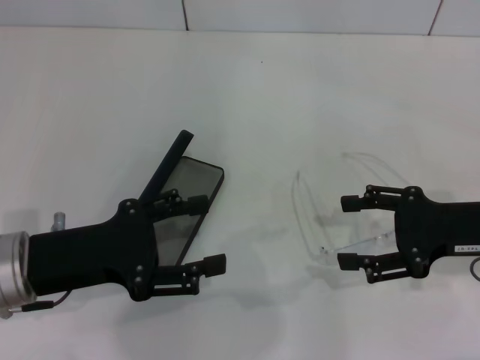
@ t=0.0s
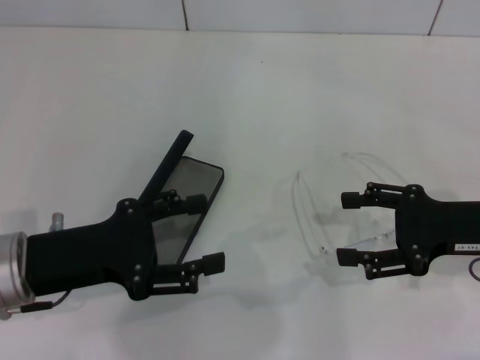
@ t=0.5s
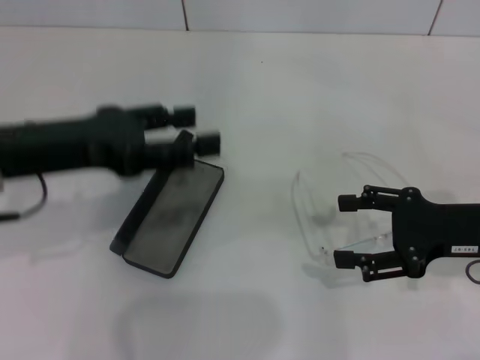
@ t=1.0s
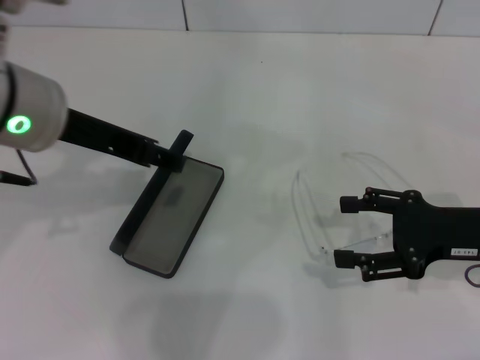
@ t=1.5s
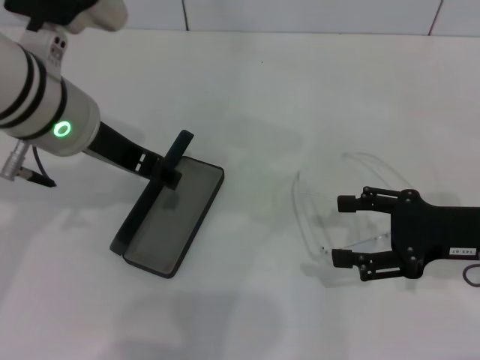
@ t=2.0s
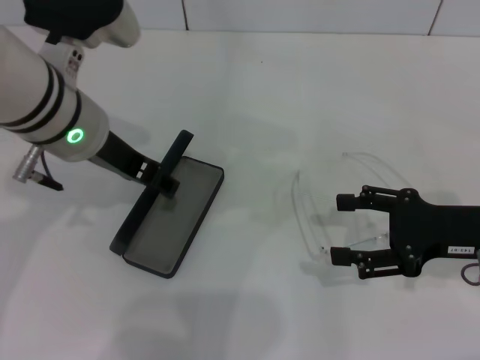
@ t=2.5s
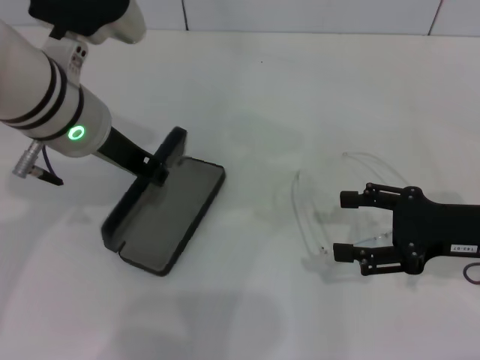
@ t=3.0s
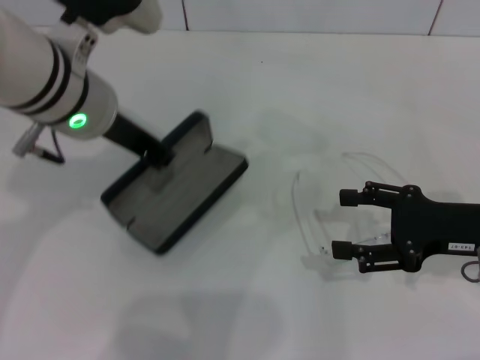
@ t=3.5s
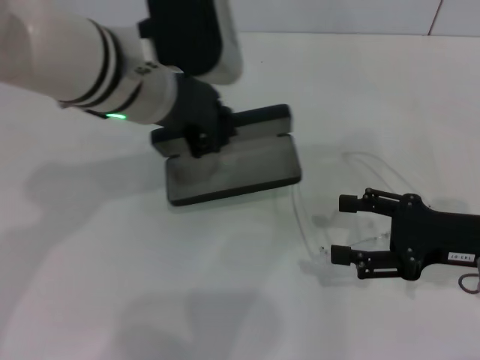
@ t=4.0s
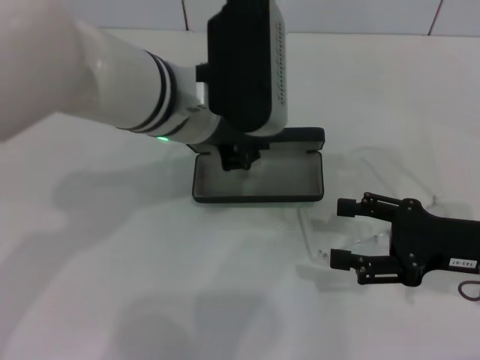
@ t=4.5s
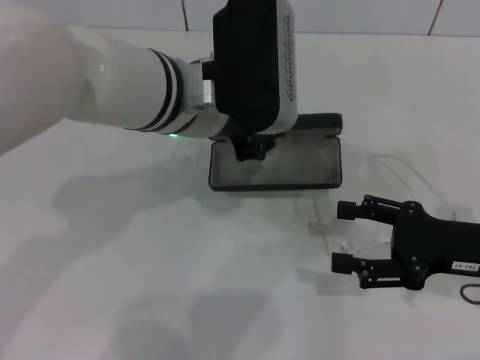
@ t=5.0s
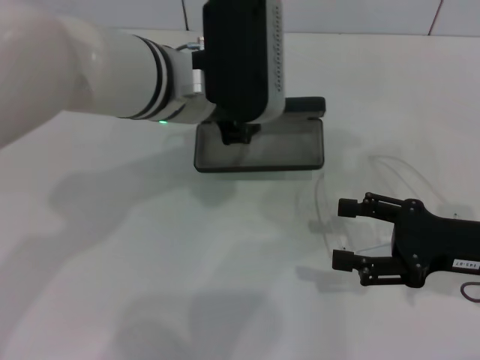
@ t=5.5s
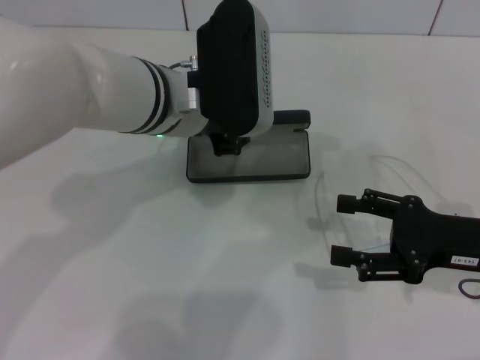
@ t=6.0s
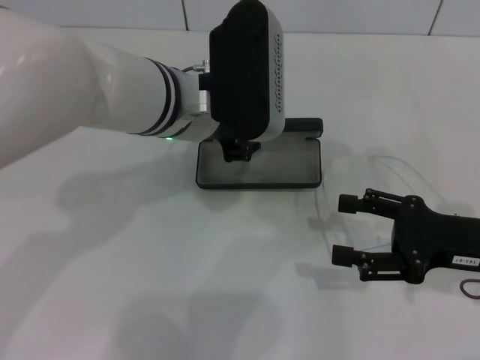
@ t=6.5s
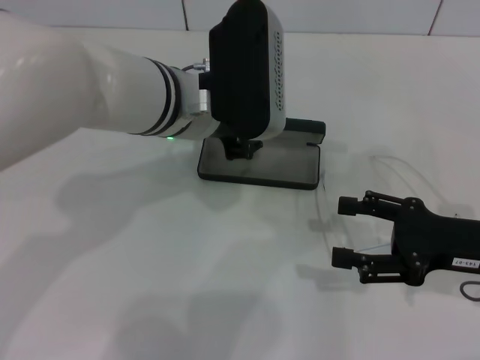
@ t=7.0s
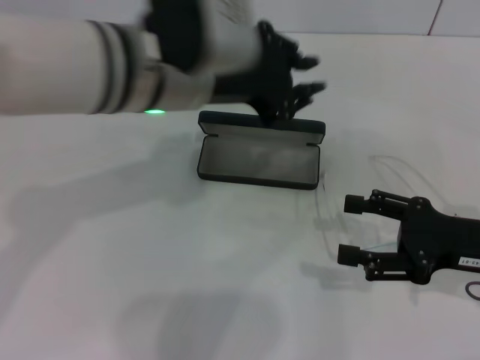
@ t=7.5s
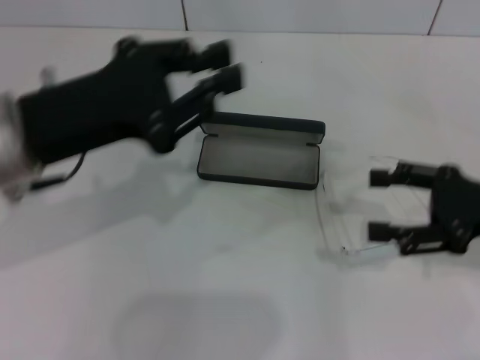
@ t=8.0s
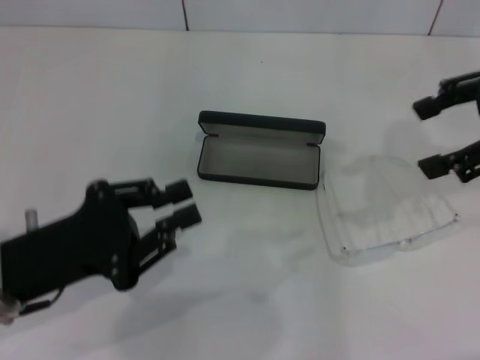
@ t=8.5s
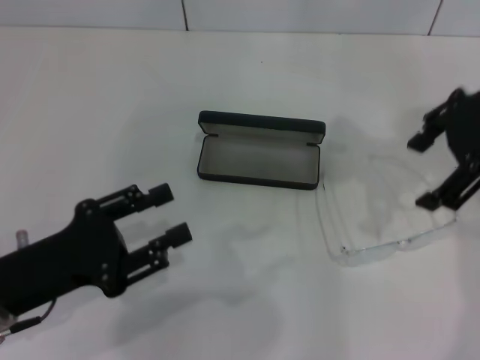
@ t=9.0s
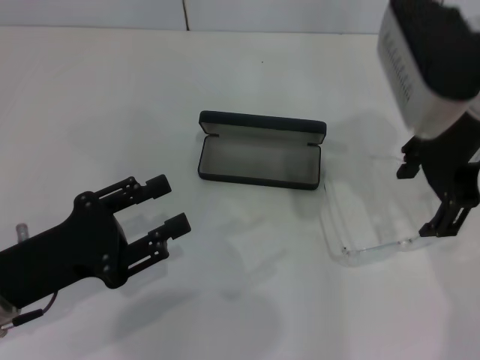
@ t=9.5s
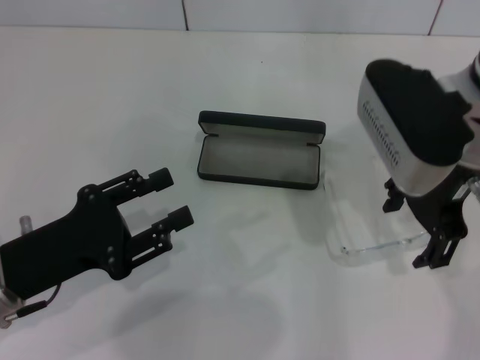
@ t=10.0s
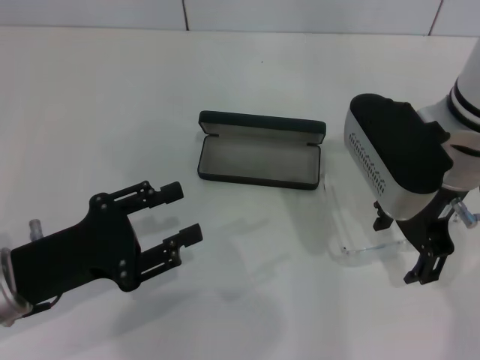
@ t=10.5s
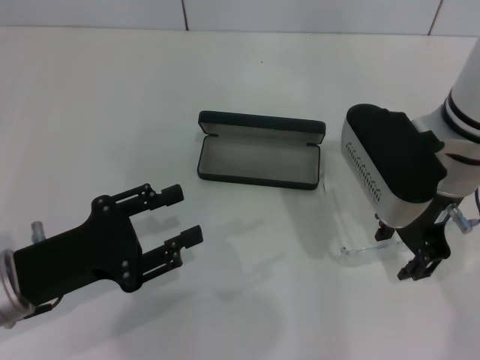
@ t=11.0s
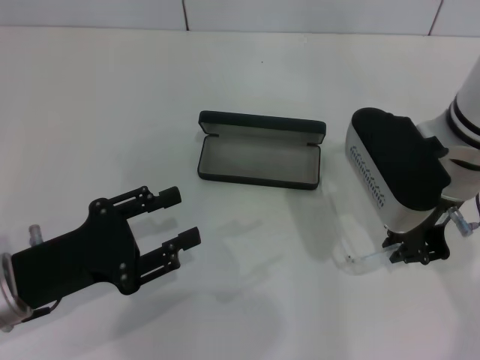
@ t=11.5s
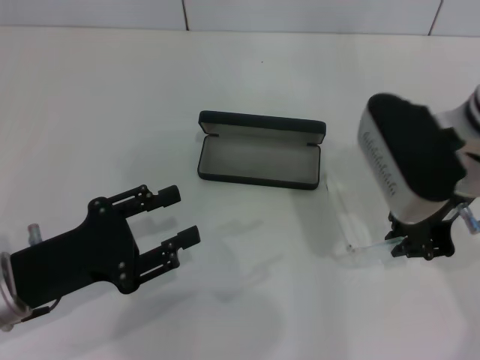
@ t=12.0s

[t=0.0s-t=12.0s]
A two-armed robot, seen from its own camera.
Step, t=0.0s to t=3.0s: Grab the glasses case with your left hand.
Step, t=3.5s to t=6.5s: Place the glasses case in the center of the table with your left hand.
Step, t=7.0s to t=11.5s: Grab the eyeglass frame with your right hand.
t=0.0s to t=2.0s: The left gripper shifts some 15 cm upward, forward and to the right.
t=2.0s to t=4.0s: The left gripper heads to the right, covering approximately 5 cm, and closes up.
t=4.0s to t=6.0s: The left gripper ends up about 5 cm from where it was.
t=6.0s to t=8.0s: The left gripper goes roughly 15 cm to the left and backward.
t=8.0s to t=10.0s: The left gripper heads downward and backward, covering approximately 15 cm, and opens up; the right gripper heads to the left, upward and forward, covering approximately 20 cm.
t=10.0s to t=12.0s: The right gripper closes its fingers.

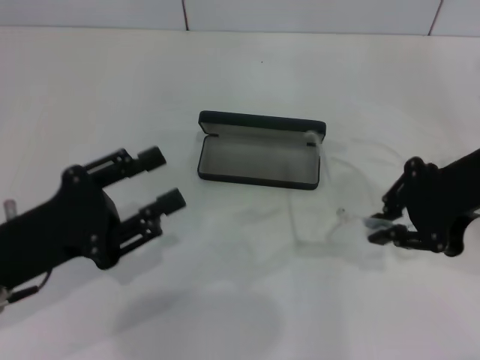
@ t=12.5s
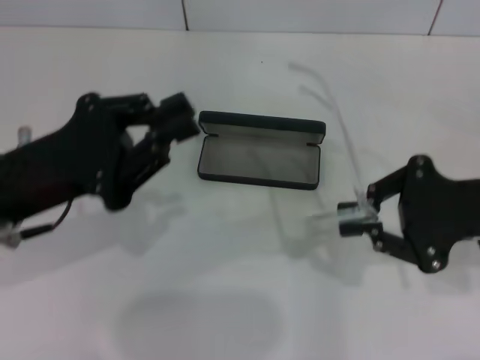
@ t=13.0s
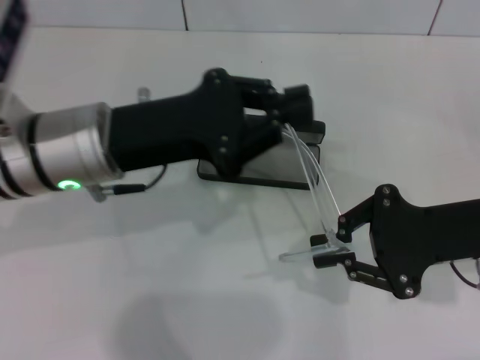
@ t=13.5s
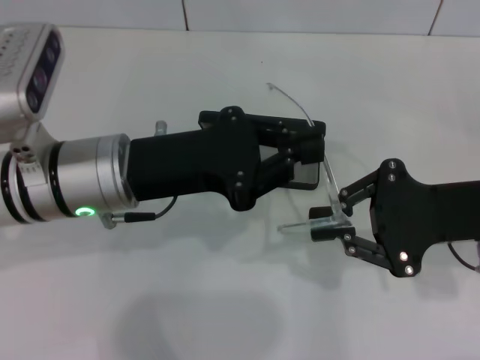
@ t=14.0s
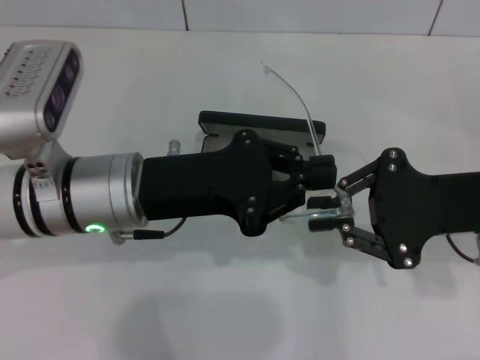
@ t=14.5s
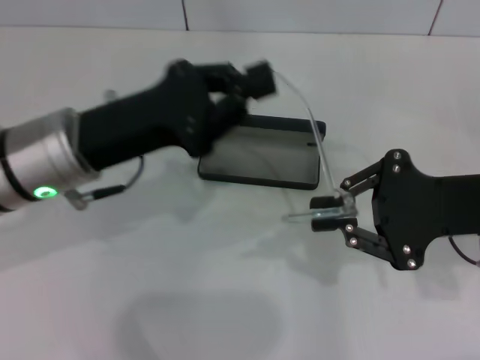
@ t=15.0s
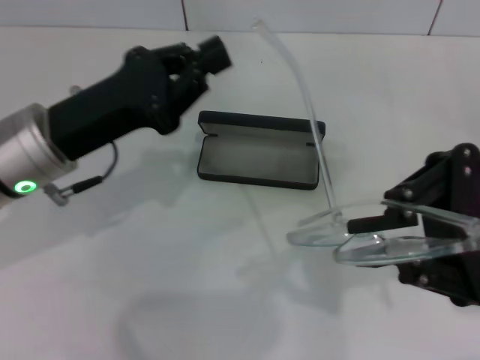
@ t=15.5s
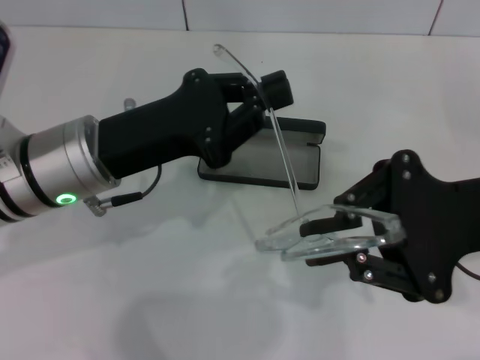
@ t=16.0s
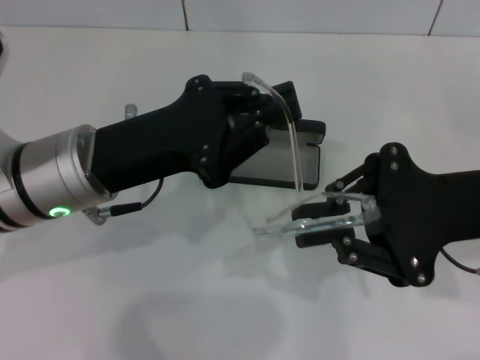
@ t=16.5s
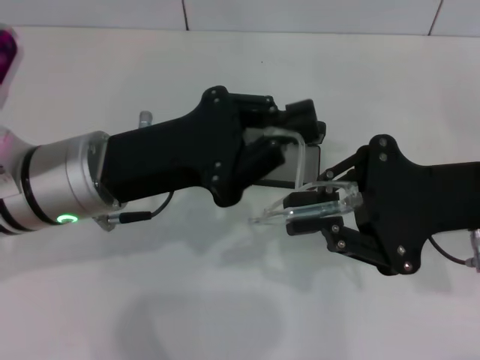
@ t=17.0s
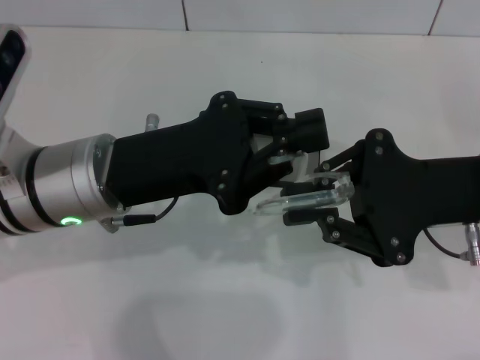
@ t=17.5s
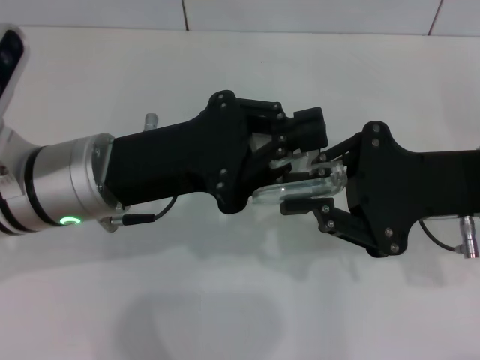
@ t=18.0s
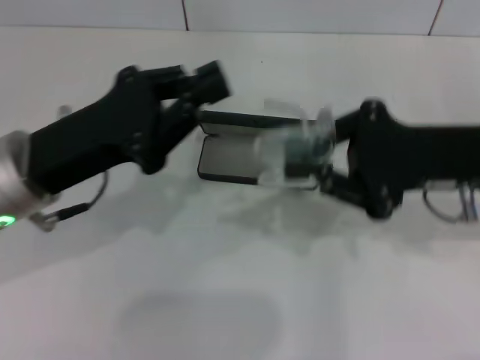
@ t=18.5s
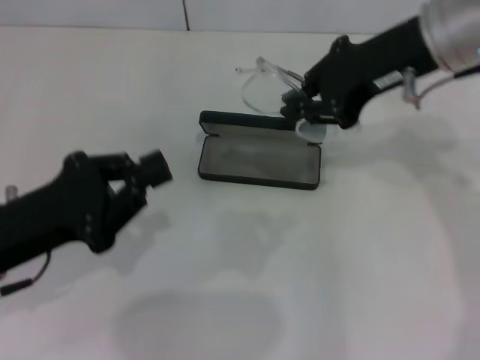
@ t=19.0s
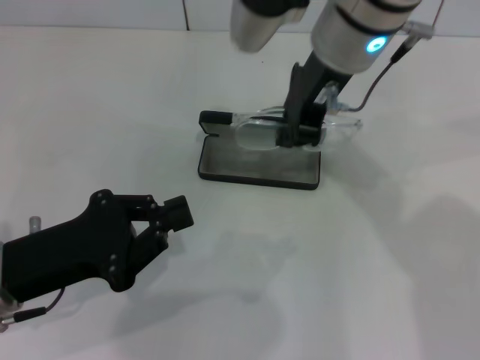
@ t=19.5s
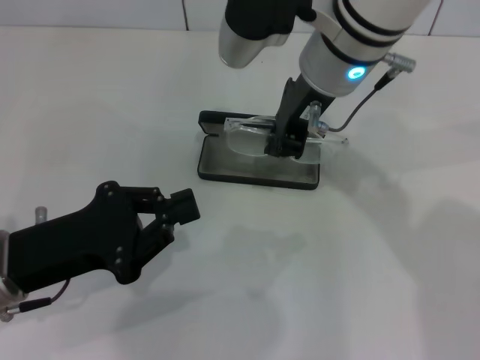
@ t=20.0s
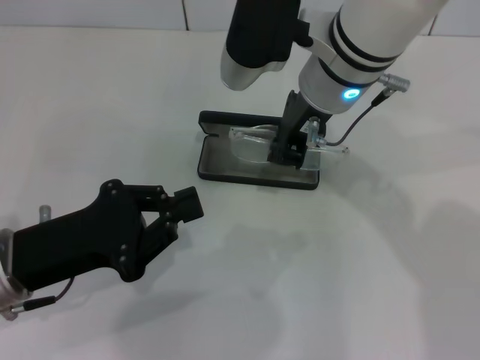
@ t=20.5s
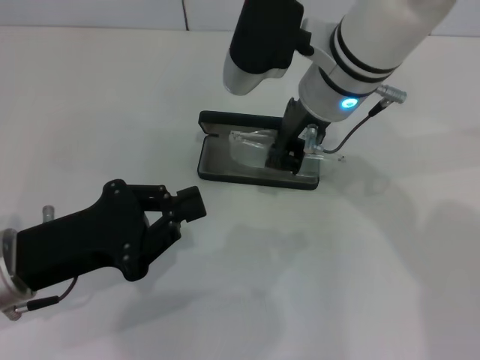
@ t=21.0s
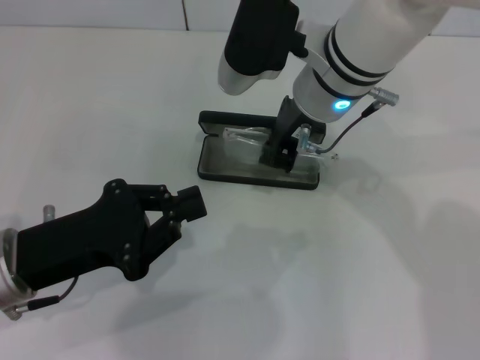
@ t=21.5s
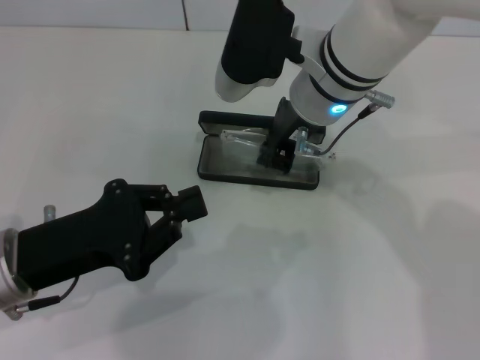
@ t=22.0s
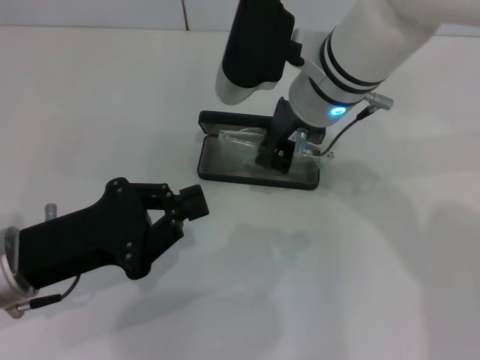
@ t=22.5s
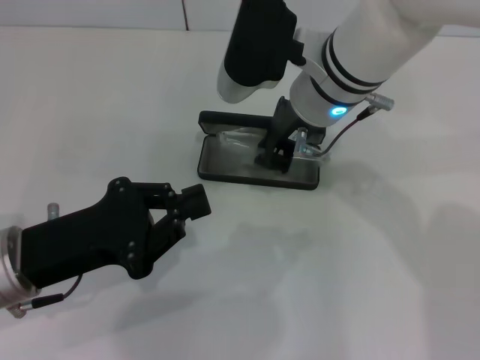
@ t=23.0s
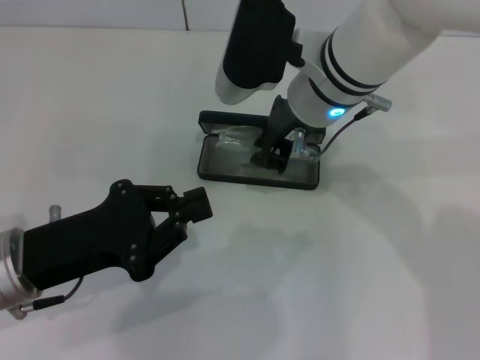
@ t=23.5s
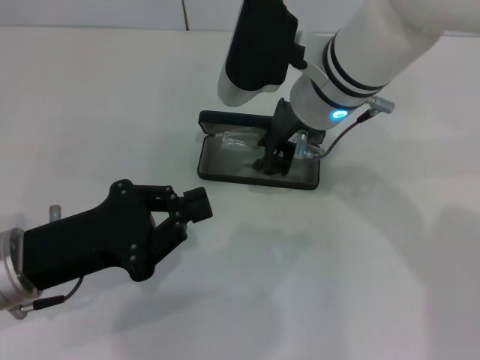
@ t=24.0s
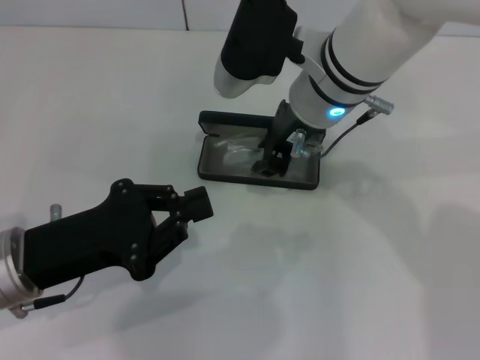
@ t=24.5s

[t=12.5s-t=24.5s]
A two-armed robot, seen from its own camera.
Step, t=12.5s to t=17.5s: Lift the glasses with your right hand.
t=12.5s to t=14.5s: The left gripper heads to the right and forward, covering approximately 15 cm, and closes up. The right gripper shifts about 5 cm downward.
t=18.5s to t=20.5s: The right gripper shifts approximately 20 cm to the left and forward; the left gripper ends up roughly 5 cm from where it was.
t=20.5s to t=22.5s: There are only small adjustments of the grippers.
t=22.5s to t=24.5s: Both grippers stay put.

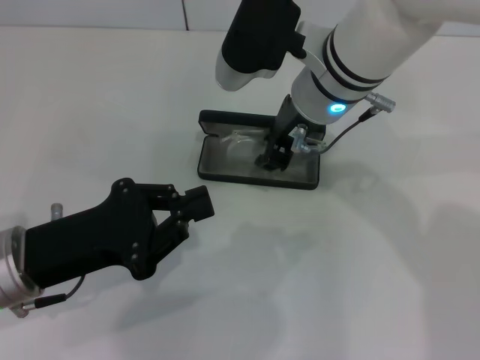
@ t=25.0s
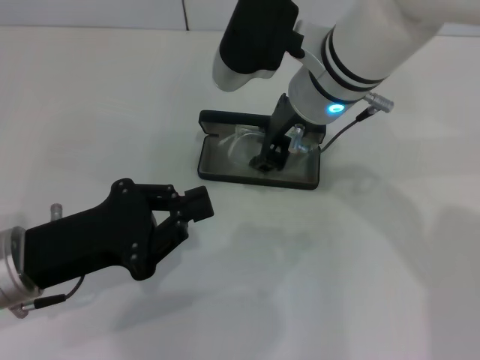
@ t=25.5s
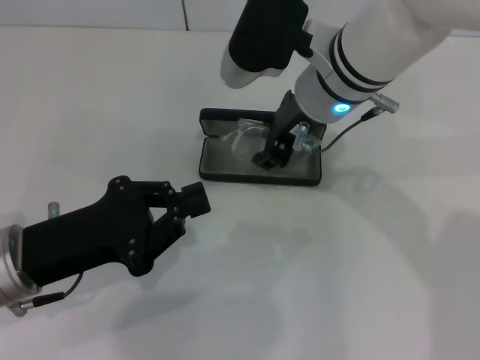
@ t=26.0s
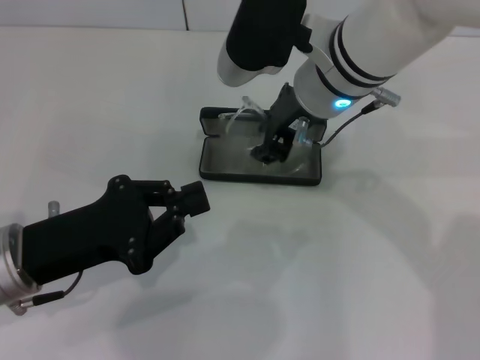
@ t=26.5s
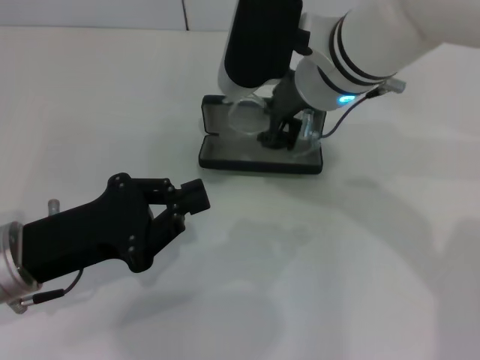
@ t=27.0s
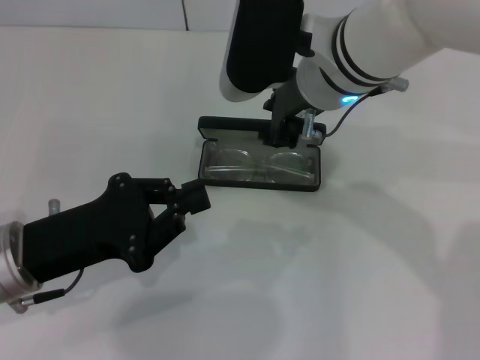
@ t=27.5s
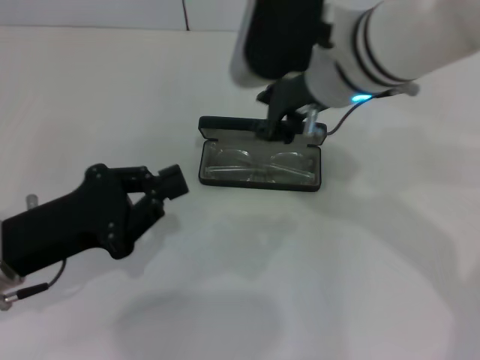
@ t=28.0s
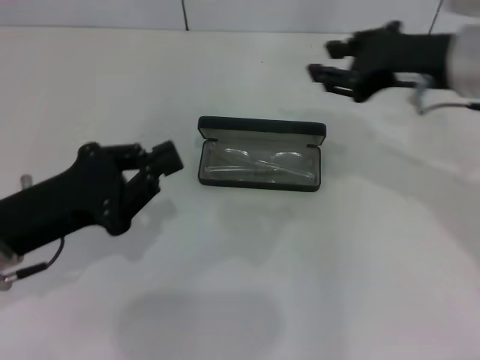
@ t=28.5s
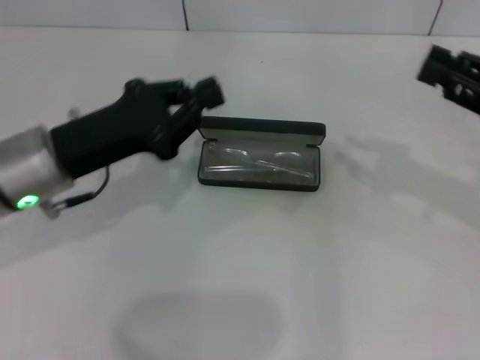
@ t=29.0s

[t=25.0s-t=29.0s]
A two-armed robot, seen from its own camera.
Step, t=25.0s to t=27.0s: Put the glasses into the case with your right hand.
t=25.0s to t=27.0s: The grippers make only small movements.
t=27.0s to t=29.0s: The left gripper travels forward by about 5 cm, while the right gripper shifts approximately 25 cm to the right.
